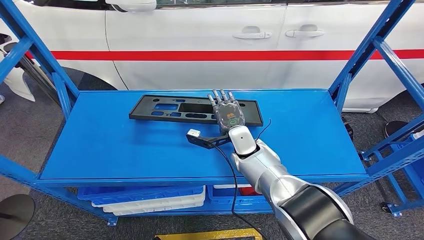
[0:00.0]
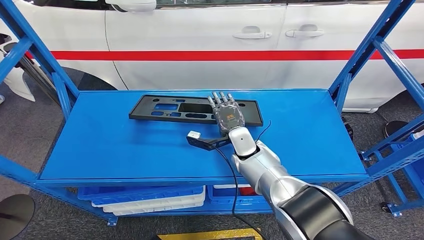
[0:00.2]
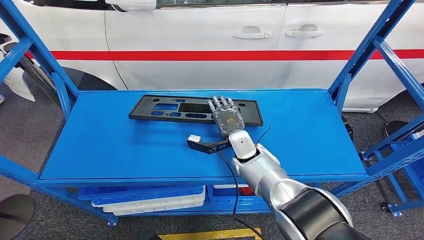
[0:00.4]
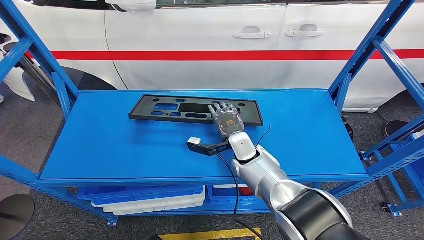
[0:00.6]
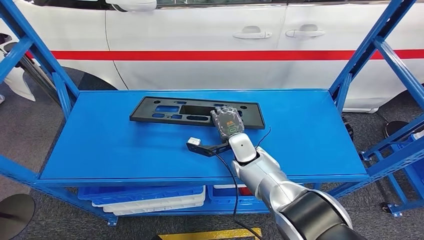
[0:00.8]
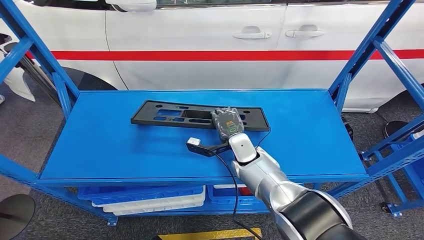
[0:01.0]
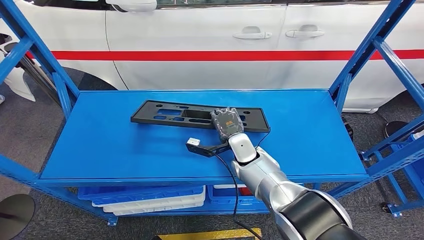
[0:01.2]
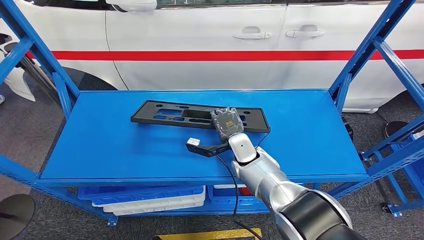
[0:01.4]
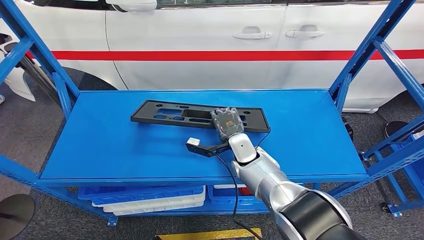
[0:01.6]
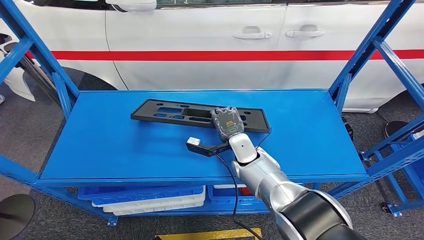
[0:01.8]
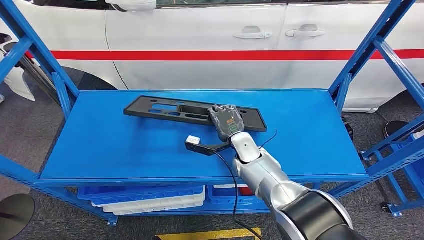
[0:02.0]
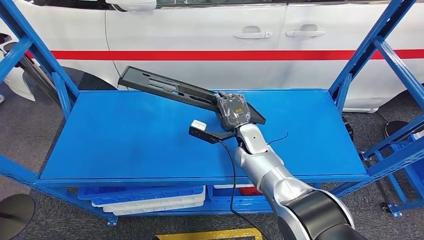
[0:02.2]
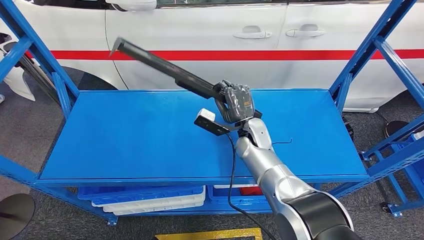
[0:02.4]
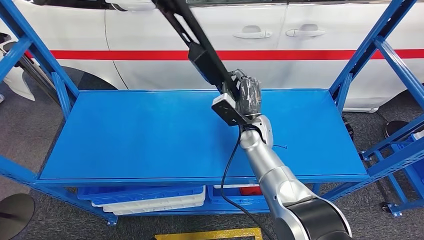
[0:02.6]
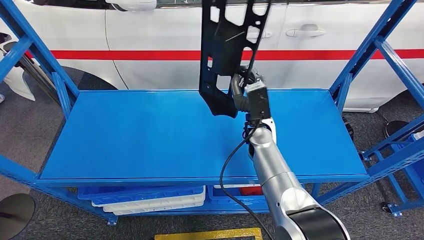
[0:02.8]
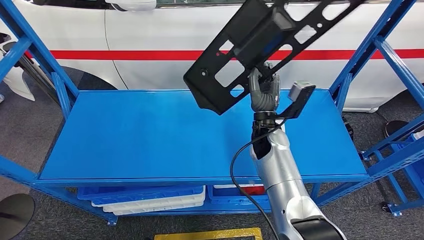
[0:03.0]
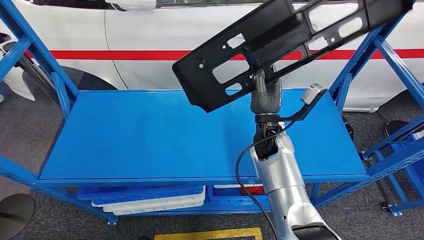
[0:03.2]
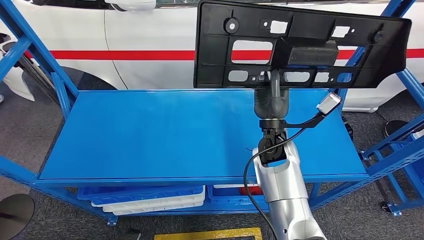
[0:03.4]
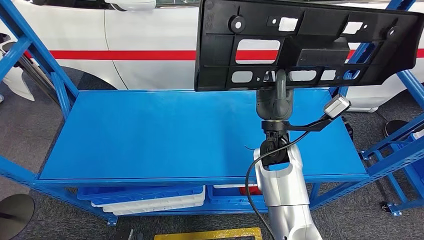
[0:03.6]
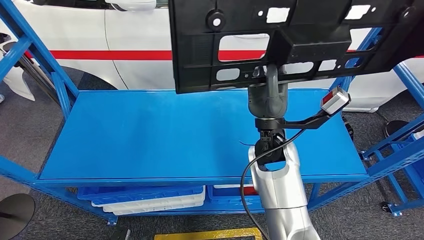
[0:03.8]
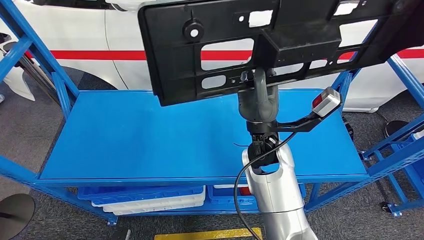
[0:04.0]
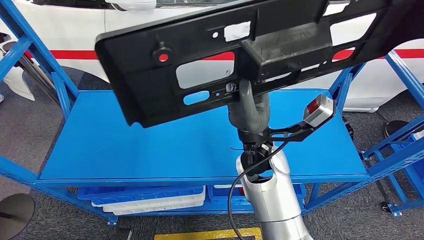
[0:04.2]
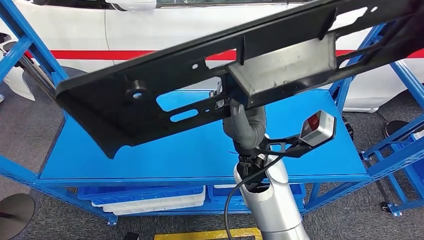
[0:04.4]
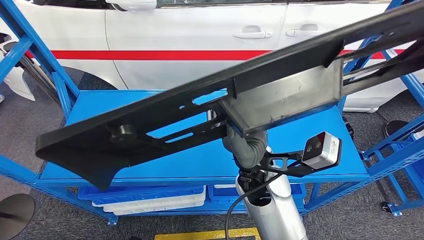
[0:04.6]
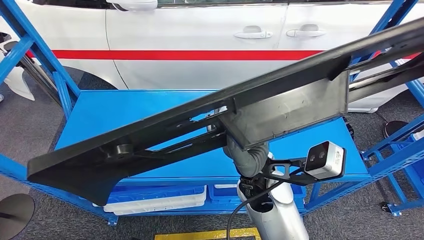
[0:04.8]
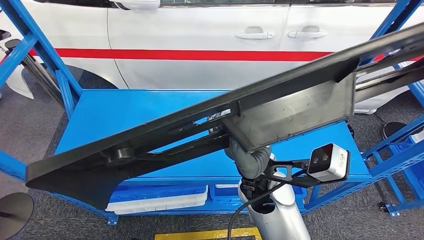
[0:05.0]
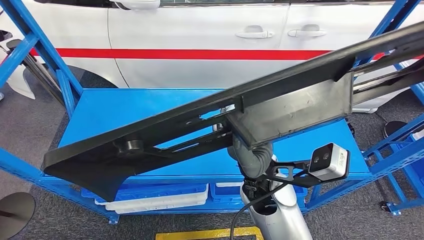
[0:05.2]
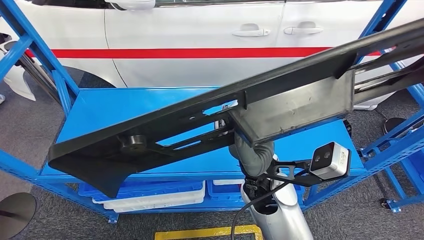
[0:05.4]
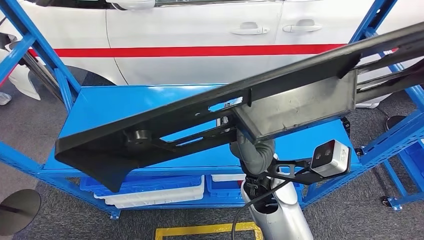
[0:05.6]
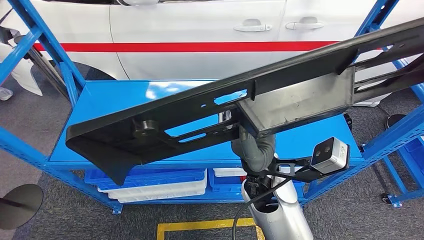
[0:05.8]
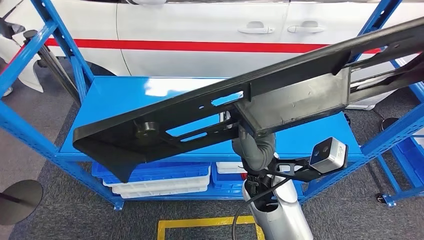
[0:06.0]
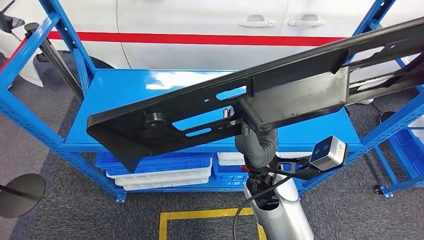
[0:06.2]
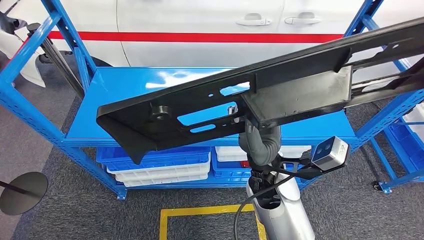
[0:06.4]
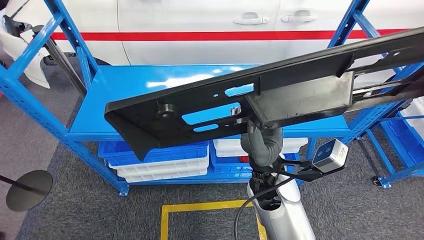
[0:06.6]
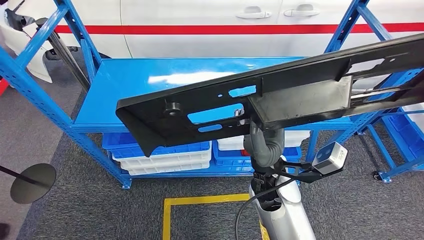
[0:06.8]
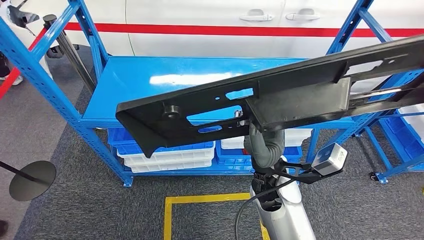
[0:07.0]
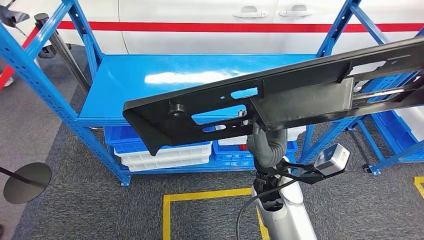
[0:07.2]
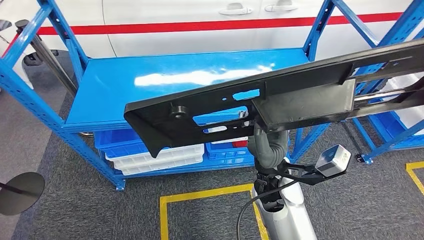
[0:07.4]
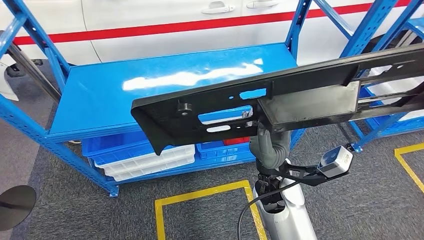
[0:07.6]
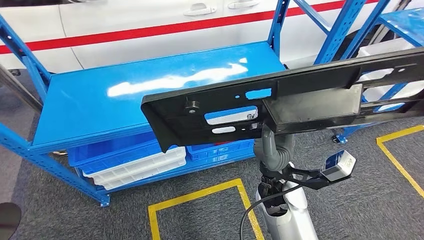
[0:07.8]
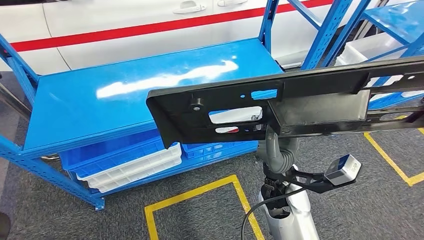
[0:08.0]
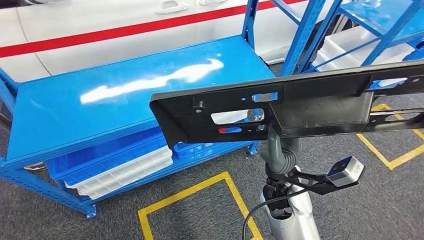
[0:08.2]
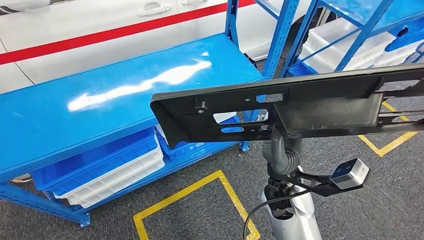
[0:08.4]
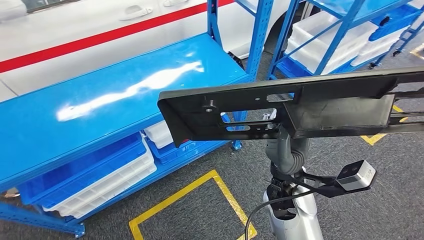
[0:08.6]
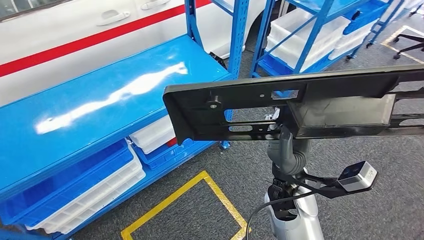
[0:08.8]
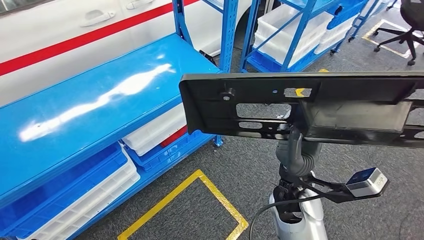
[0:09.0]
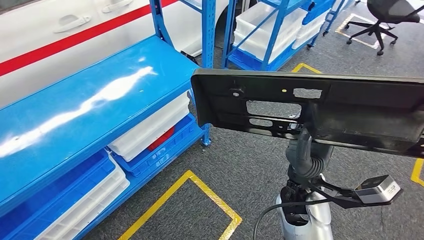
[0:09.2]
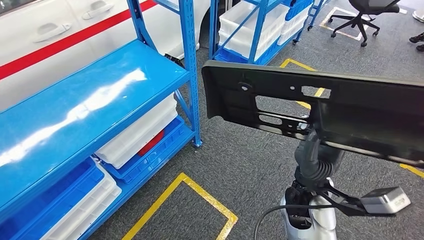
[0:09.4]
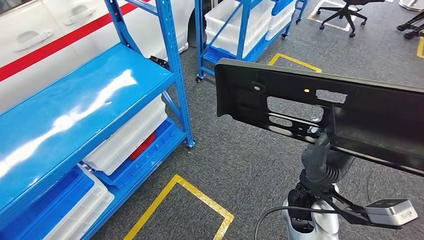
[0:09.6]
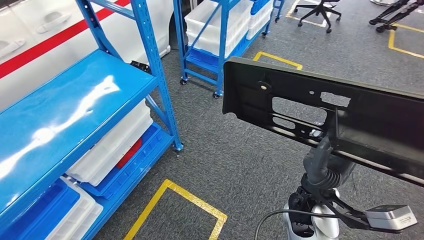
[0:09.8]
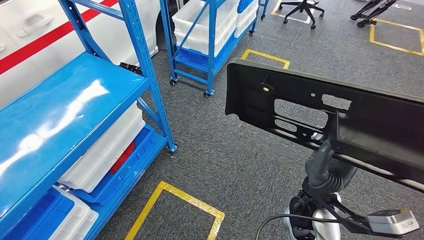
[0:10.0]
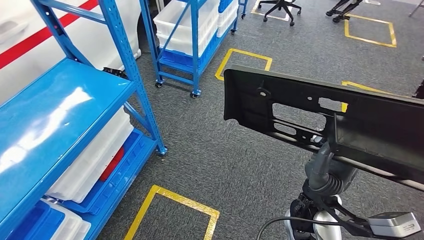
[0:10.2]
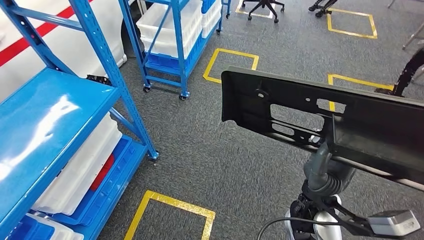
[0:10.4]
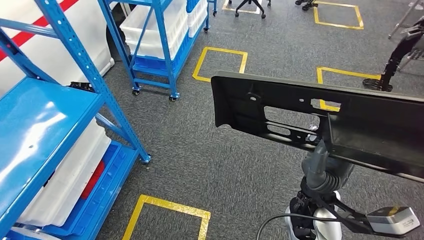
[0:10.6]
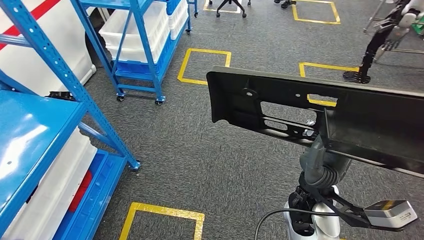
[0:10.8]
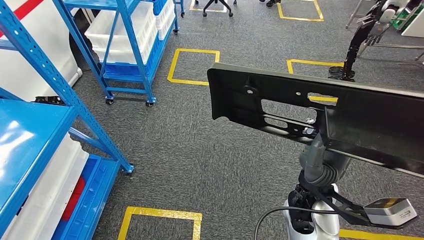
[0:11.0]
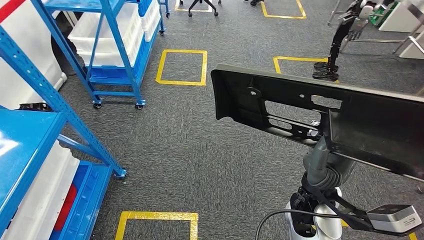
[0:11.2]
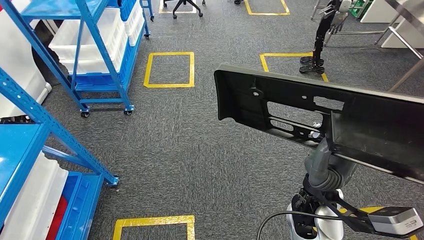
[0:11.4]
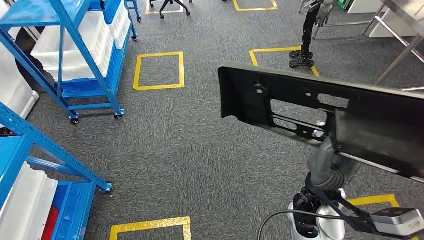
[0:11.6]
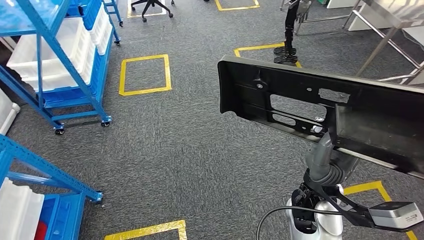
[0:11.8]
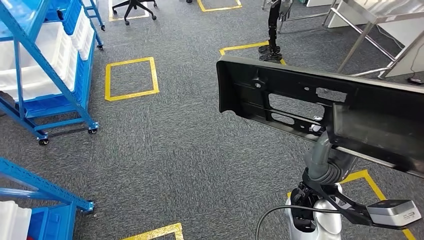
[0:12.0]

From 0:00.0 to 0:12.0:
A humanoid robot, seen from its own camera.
From 0:00.0 to 0:01.6: There are only small adjustments of the hands.

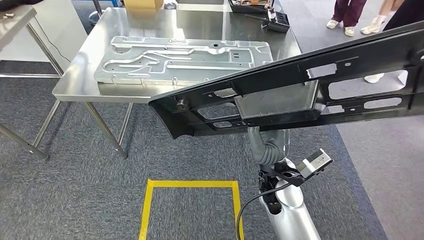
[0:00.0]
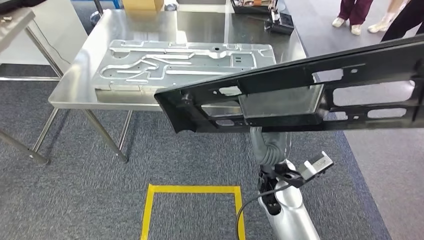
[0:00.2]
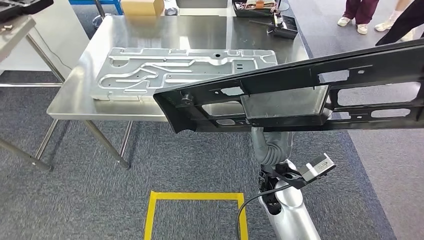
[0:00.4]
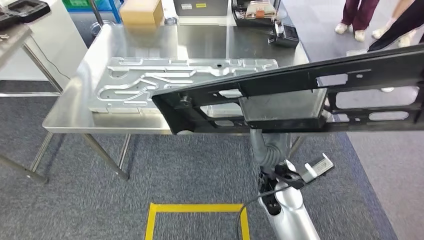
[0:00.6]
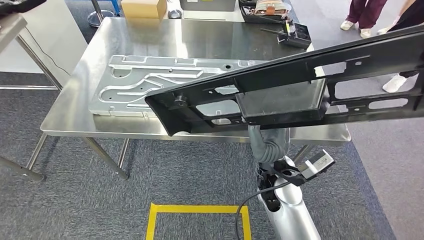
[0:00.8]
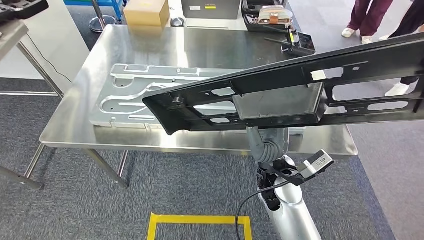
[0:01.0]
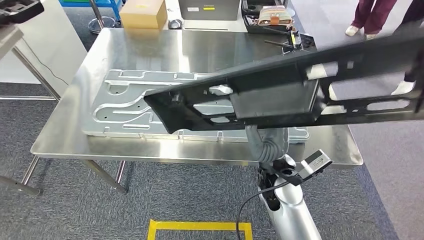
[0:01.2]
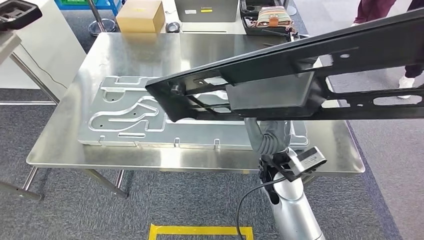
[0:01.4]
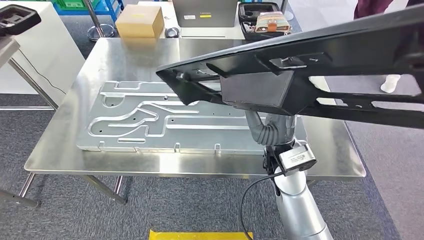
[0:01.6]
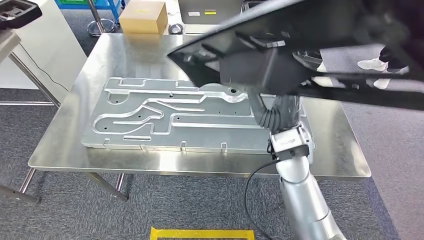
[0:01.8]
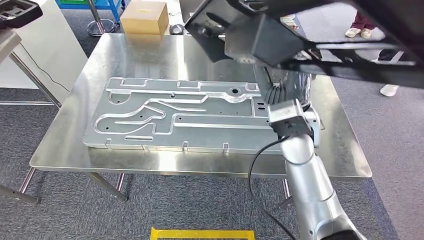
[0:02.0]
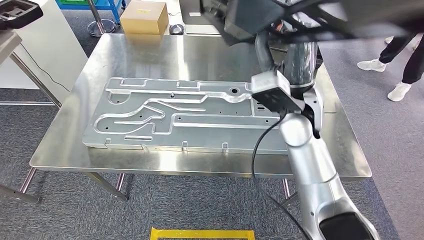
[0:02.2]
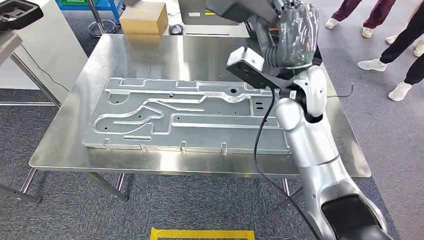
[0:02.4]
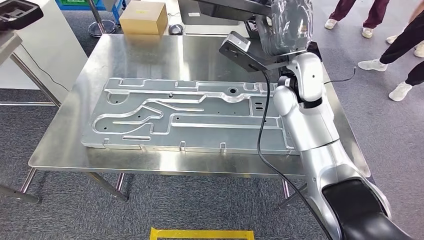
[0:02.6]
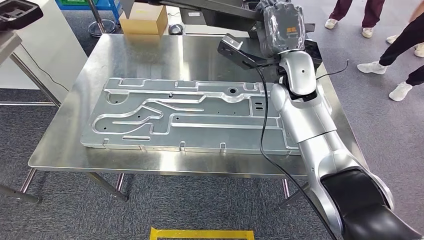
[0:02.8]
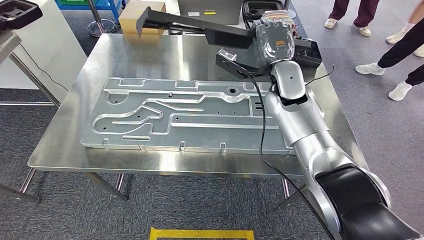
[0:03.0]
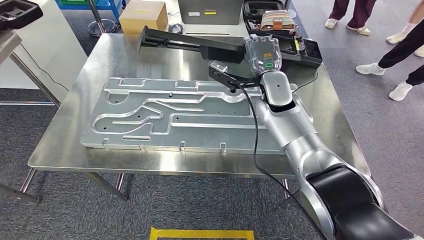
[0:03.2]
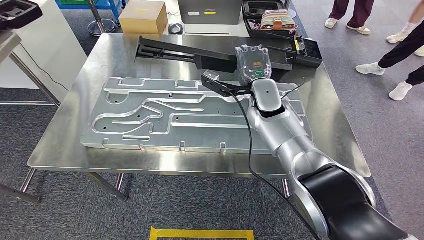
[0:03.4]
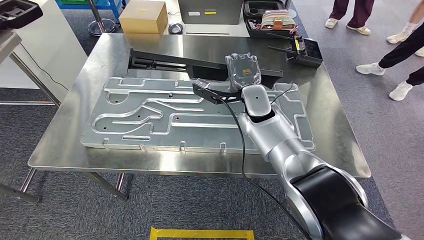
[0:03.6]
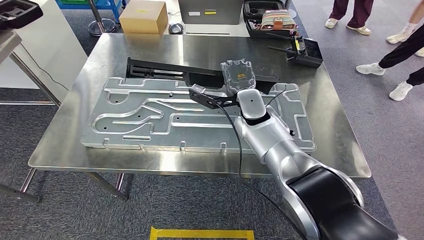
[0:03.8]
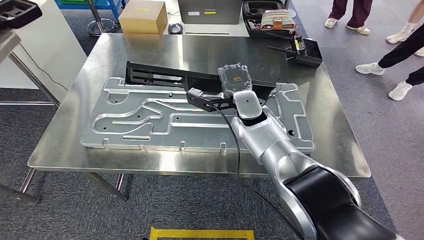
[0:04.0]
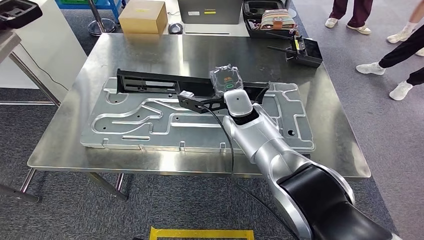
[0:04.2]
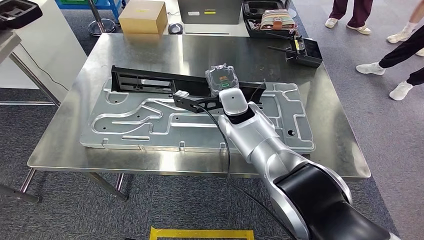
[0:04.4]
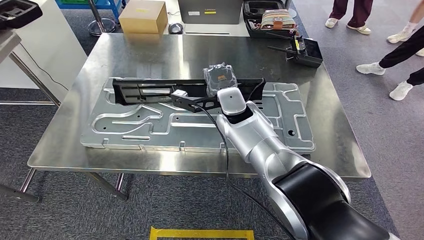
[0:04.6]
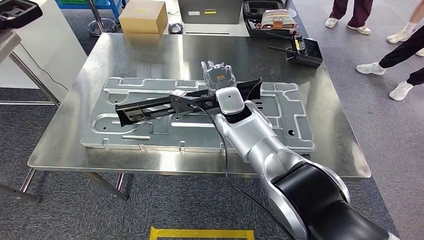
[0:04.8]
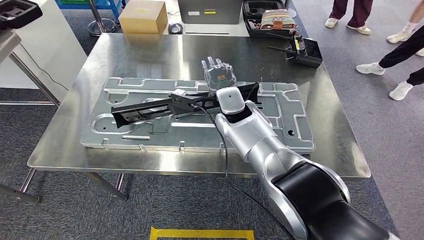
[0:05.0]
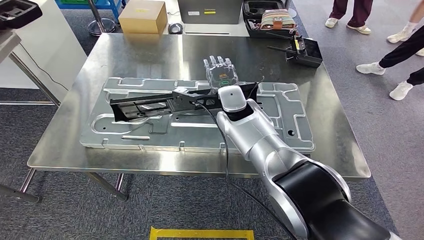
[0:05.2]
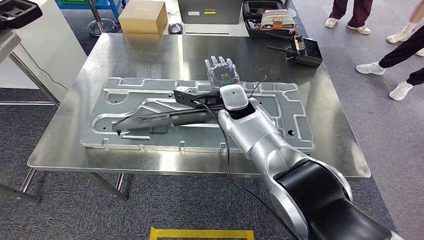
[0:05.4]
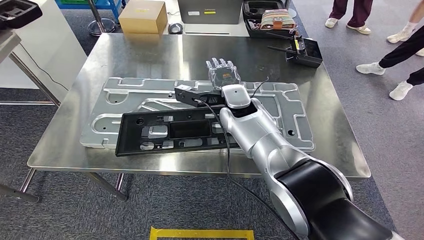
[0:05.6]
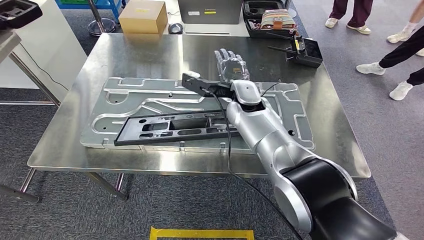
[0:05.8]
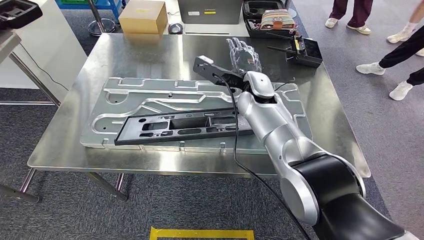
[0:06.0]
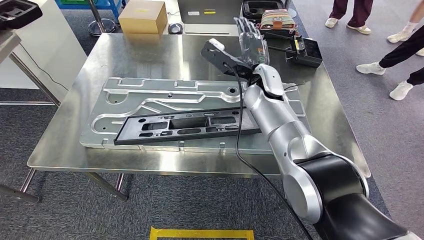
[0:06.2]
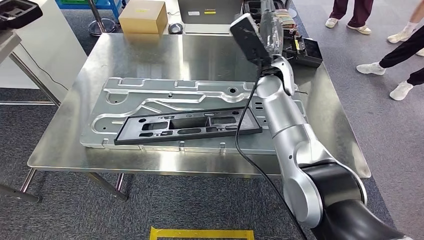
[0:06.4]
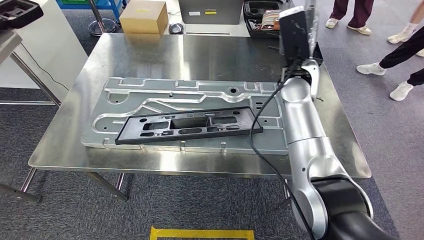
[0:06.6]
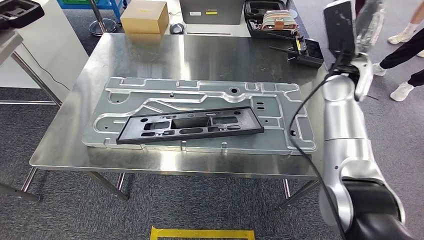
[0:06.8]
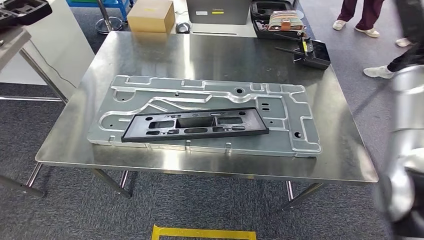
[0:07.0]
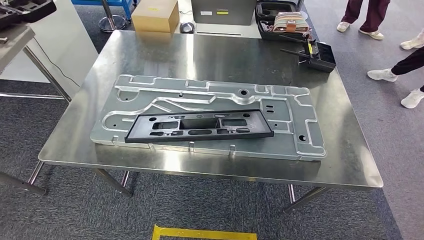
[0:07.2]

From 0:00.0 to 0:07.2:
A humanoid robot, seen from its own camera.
From 0:04.4 to 0:05.8: There are only small adjustments of the hands.
